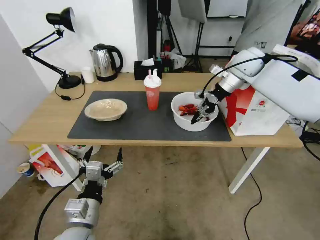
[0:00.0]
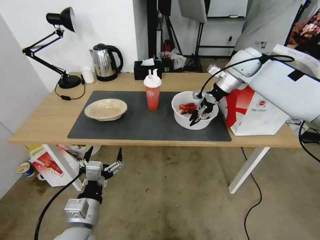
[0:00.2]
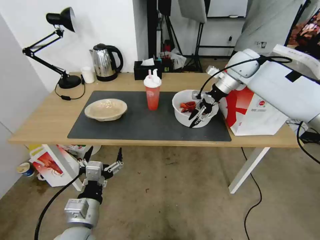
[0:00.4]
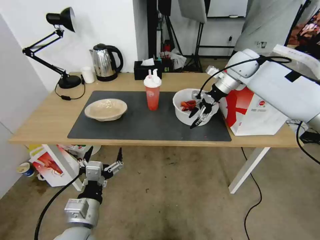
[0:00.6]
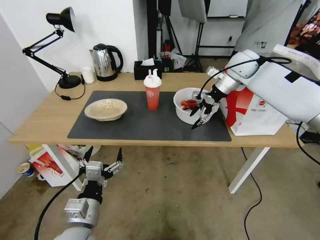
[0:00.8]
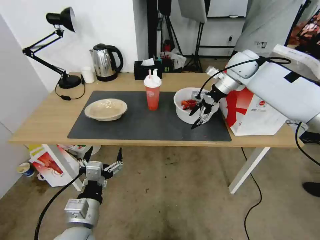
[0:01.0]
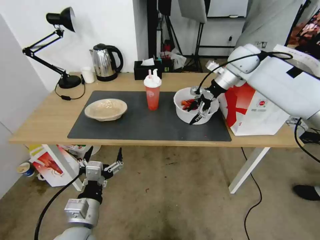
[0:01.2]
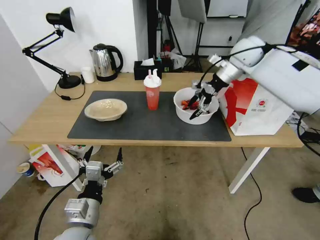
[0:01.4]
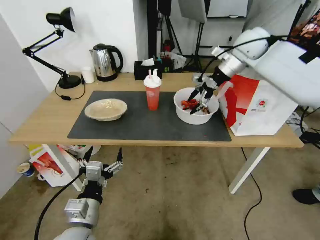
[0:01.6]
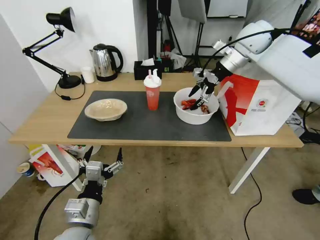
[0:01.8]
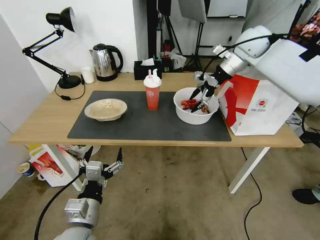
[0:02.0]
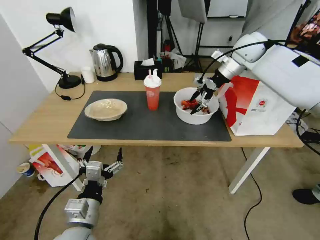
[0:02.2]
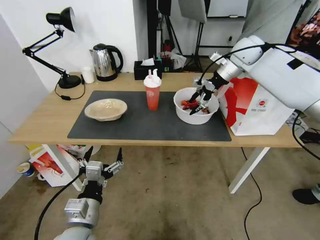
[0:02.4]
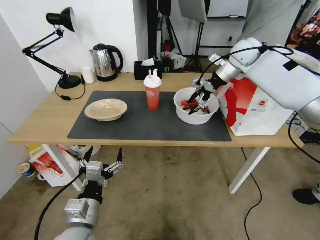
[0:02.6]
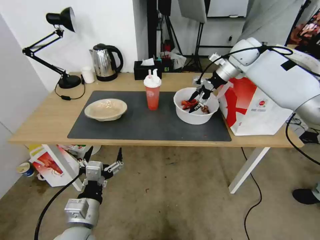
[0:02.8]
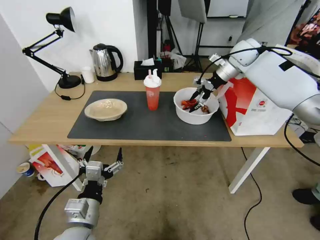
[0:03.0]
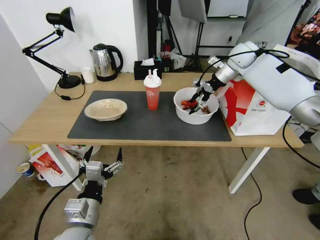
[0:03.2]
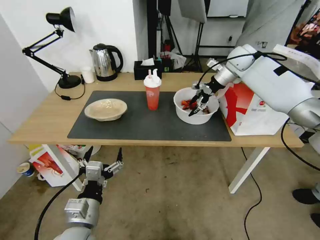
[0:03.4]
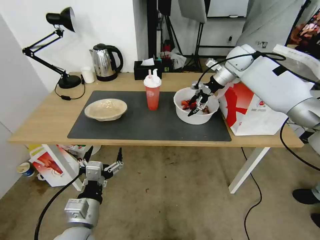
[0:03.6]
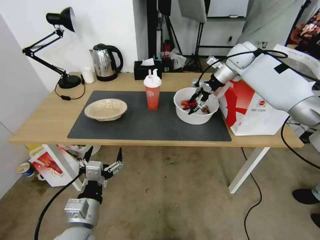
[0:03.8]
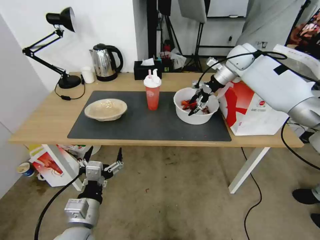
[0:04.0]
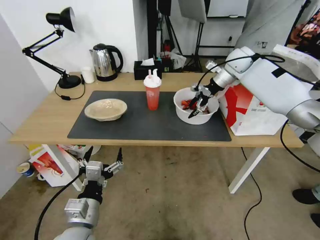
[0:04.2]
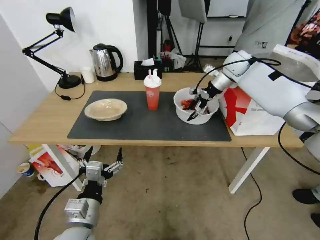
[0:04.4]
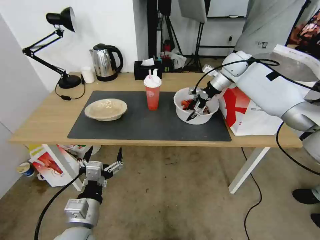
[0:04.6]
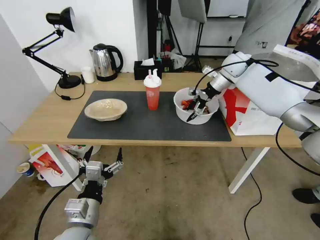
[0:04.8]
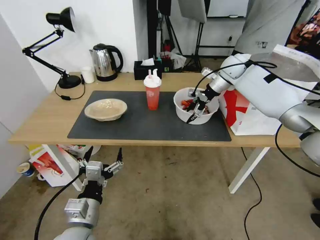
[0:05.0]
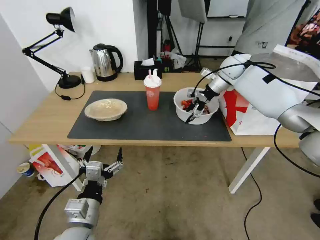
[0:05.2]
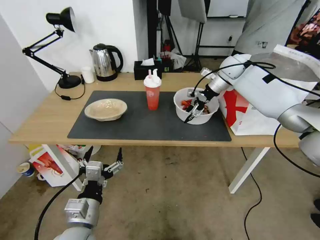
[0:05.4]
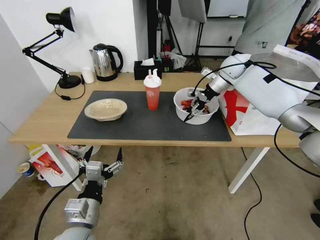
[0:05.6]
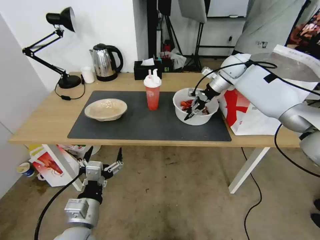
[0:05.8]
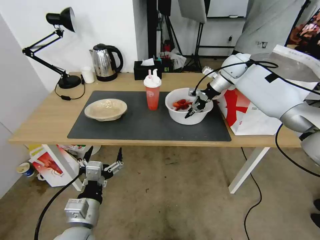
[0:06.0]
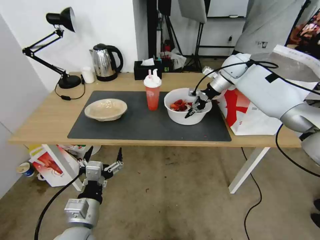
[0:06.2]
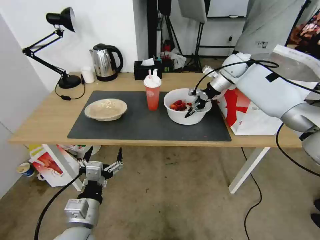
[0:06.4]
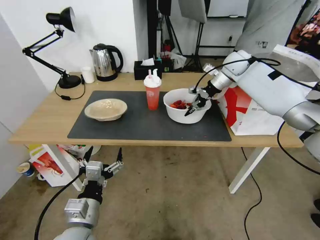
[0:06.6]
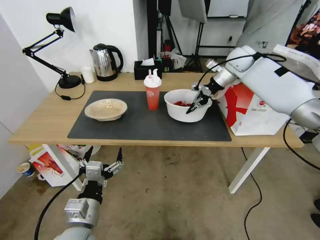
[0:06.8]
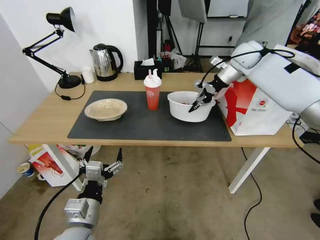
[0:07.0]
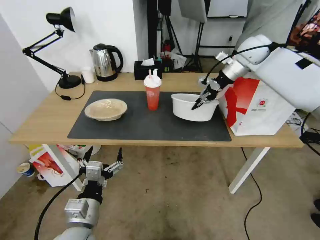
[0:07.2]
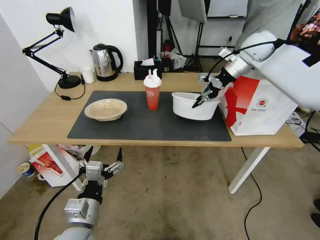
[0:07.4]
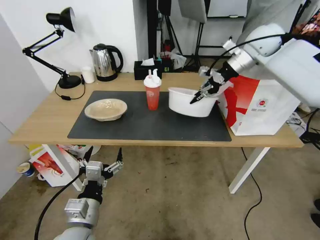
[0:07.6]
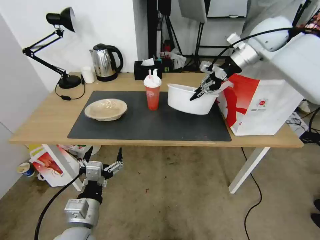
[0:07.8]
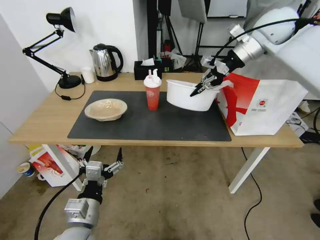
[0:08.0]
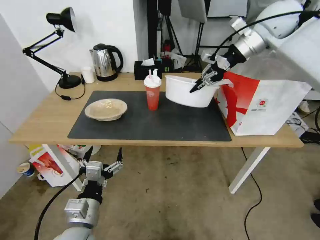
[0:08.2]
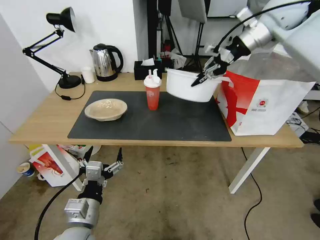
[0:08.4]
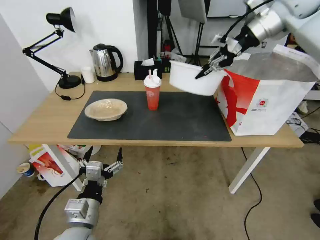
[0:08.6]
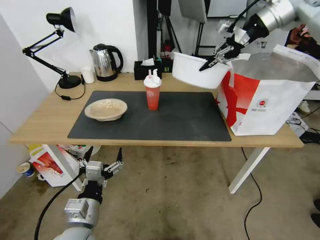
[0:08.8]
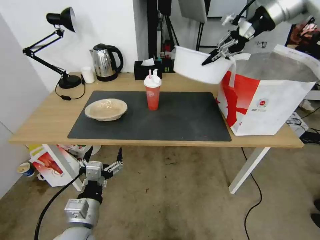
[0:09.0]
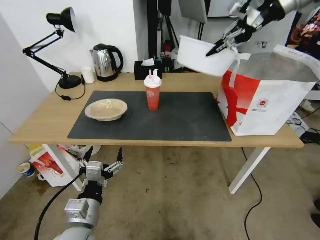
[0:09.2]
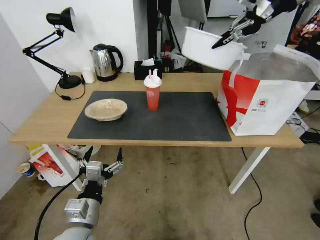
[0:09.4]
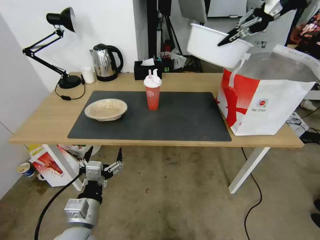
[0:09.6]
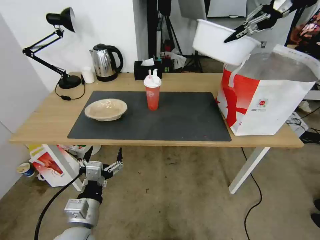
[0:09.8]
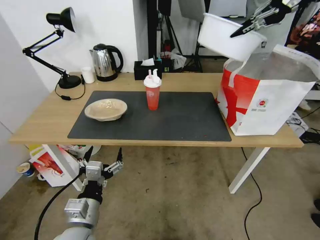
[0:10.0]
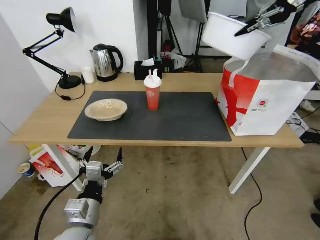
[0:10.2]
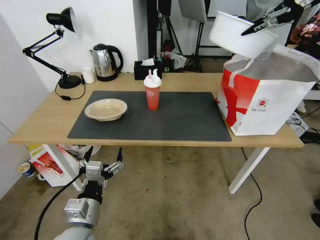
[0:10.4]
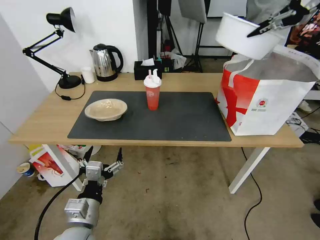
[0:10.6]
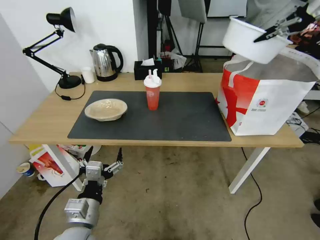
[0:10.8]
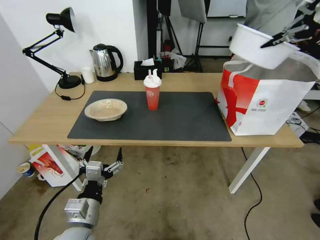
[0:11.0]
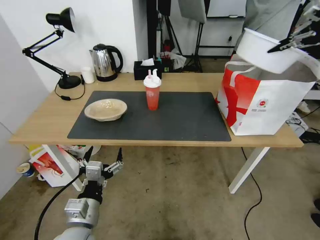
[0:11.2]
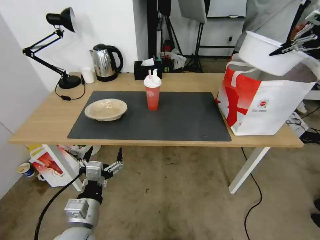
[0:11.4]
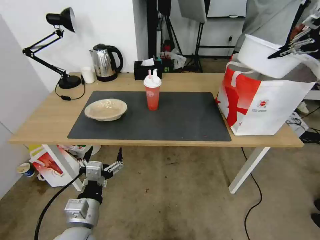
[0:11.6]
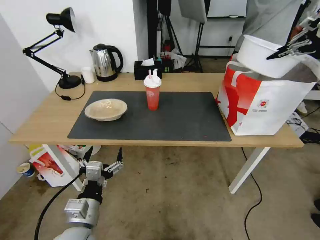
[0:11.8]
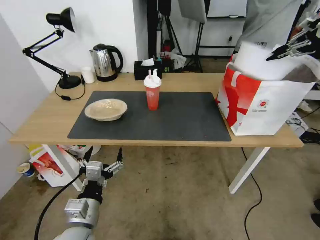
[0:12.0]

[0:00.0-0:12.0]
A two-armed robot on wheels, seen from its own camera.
Task of the whole recording: Pick up the trash from the table and place it into the takeout bag.
0:00.0 to 0:01.6: The right gripper shifts approximately 5 cm upward, and opens up.
0:01.6 to 0:03.0: The right gripper shifts by approximately 5 cm.
0:03.0 to 0:04.4: The grippers stay close to where they were, moving slightly.
0:04.4 to 0:06.0: The right gripper closes its fingers.
0:06.0 to 0:07.6: The right gripper is displaced upward and backward by approximately 10 cm.
0:07.6 to 0:09.0: The right gripper is displaced upward by approximately 15 cm.
0:09.0 to 0:10.4: The right gripper heads to the right and upward, covering about 15 cm.
0:10.4 to 0:12.0: The right gripper travels to the right and downward by roughly 10 cm.

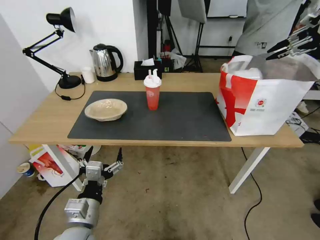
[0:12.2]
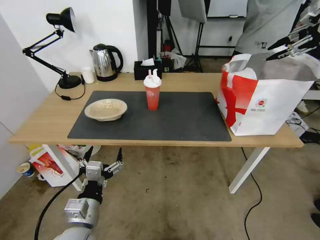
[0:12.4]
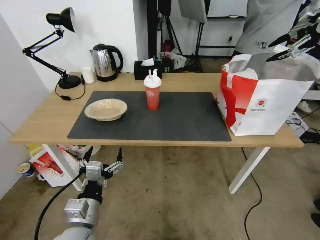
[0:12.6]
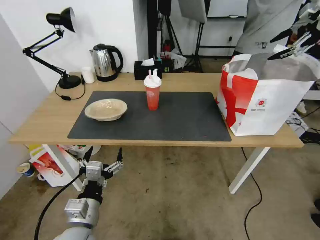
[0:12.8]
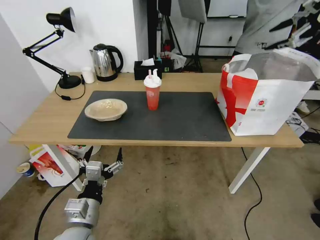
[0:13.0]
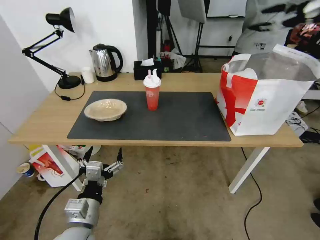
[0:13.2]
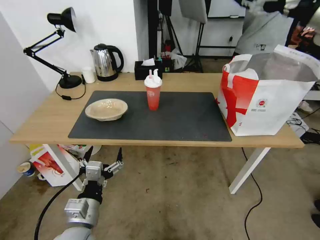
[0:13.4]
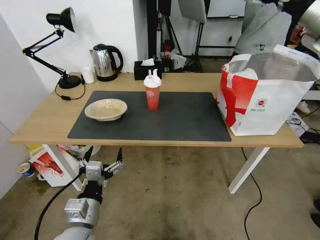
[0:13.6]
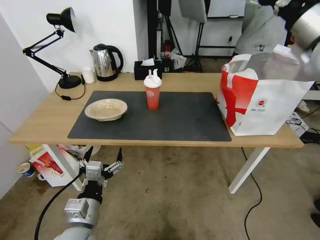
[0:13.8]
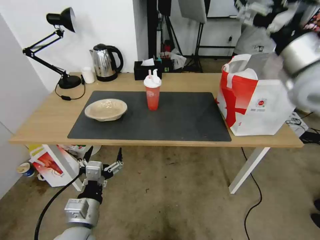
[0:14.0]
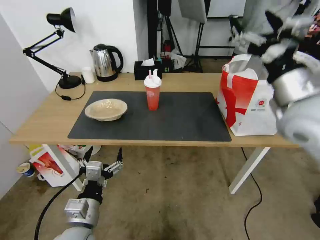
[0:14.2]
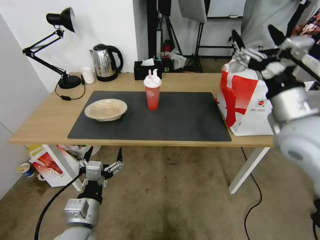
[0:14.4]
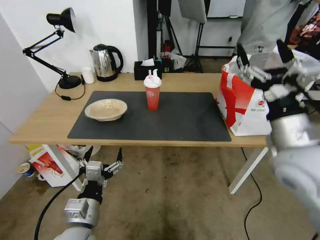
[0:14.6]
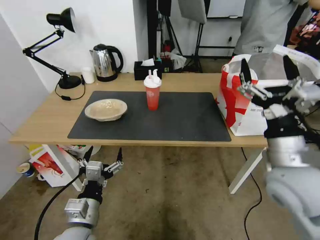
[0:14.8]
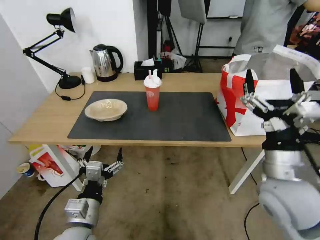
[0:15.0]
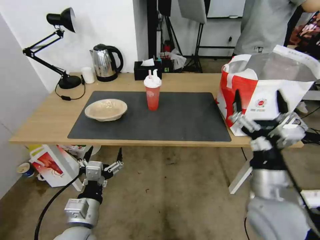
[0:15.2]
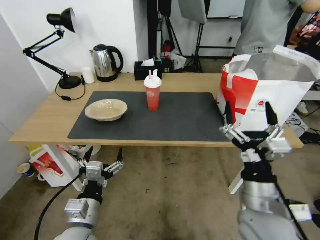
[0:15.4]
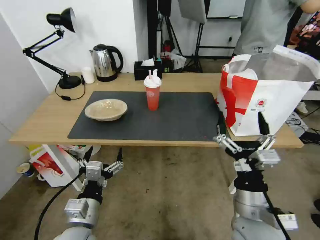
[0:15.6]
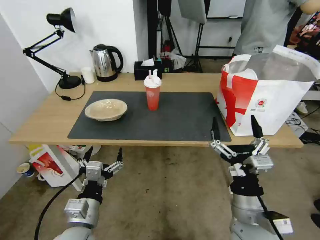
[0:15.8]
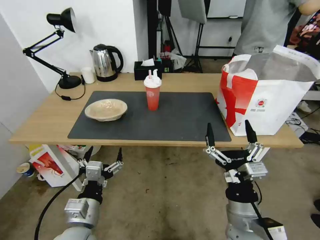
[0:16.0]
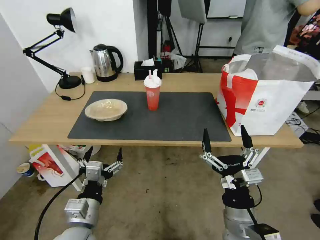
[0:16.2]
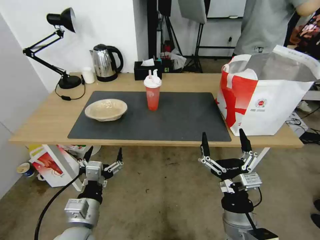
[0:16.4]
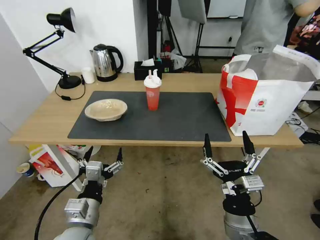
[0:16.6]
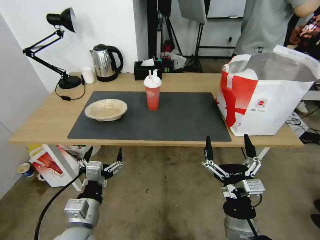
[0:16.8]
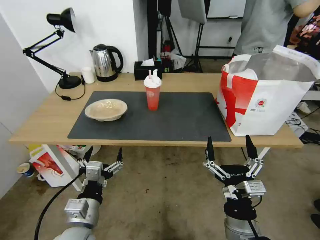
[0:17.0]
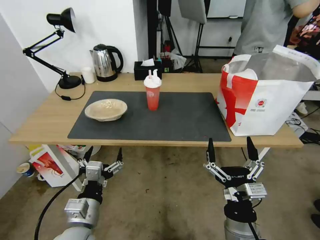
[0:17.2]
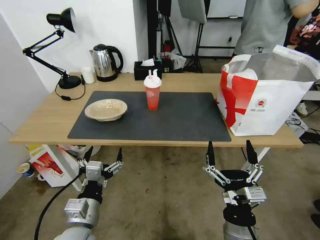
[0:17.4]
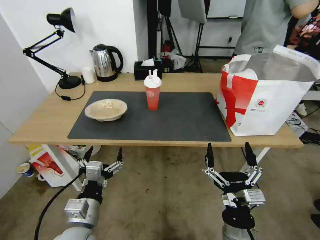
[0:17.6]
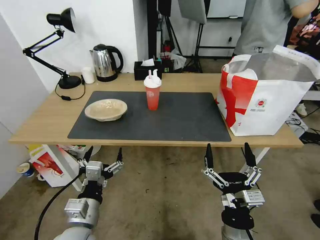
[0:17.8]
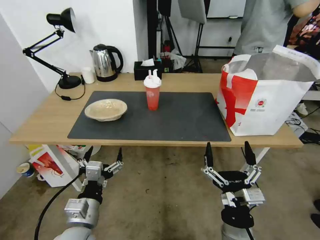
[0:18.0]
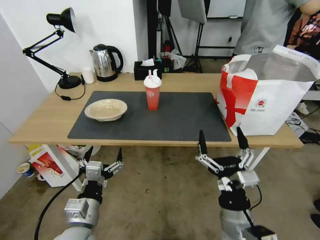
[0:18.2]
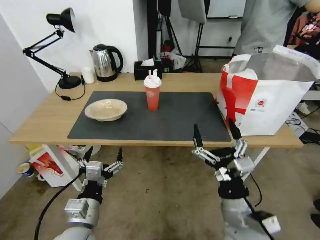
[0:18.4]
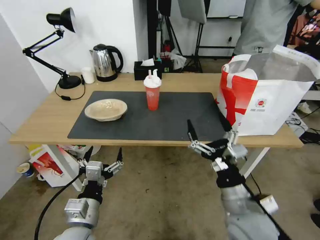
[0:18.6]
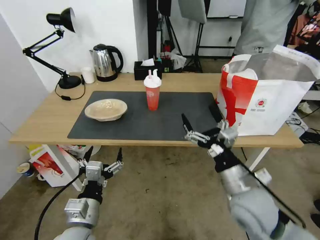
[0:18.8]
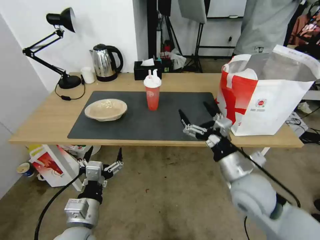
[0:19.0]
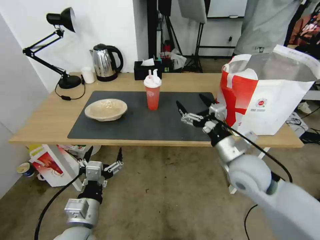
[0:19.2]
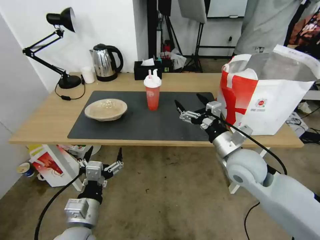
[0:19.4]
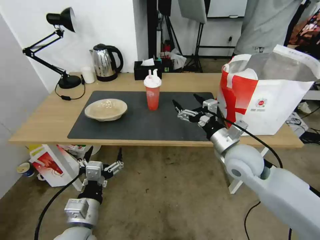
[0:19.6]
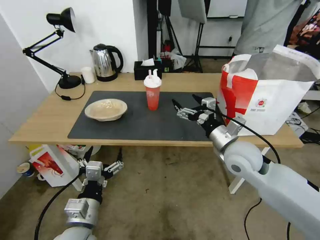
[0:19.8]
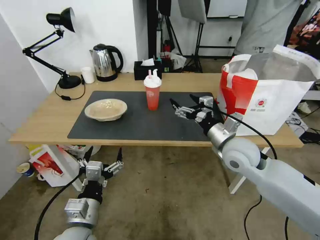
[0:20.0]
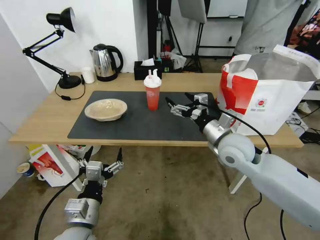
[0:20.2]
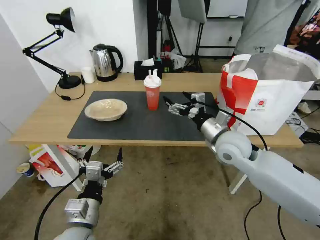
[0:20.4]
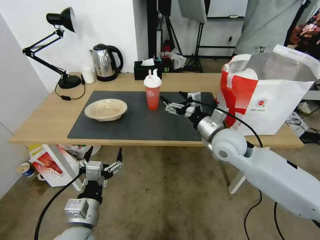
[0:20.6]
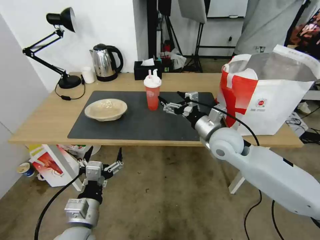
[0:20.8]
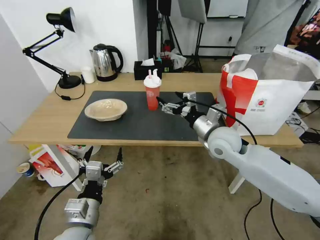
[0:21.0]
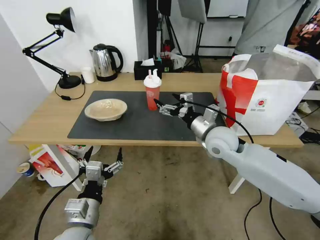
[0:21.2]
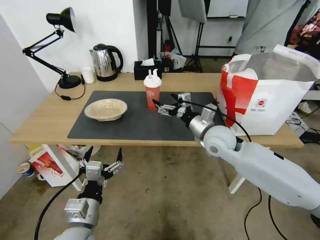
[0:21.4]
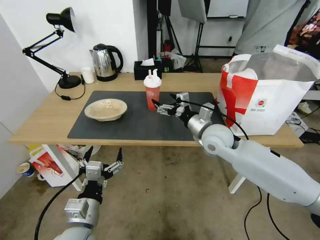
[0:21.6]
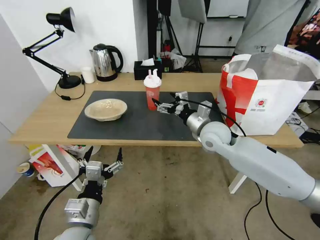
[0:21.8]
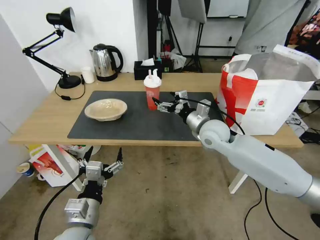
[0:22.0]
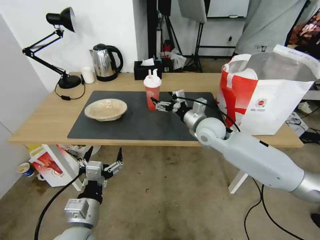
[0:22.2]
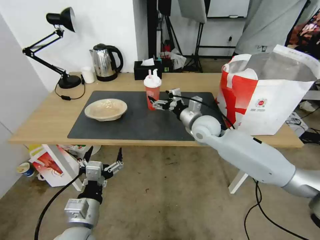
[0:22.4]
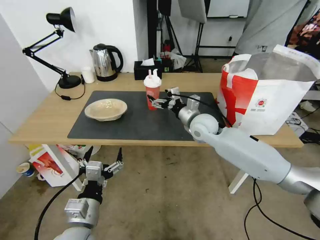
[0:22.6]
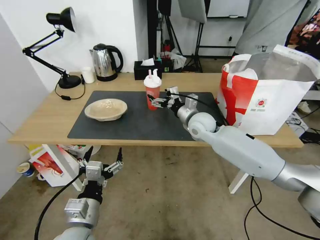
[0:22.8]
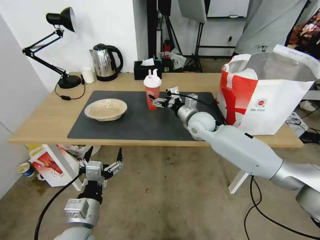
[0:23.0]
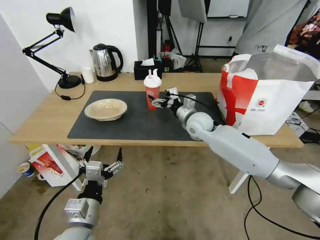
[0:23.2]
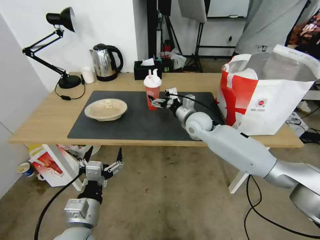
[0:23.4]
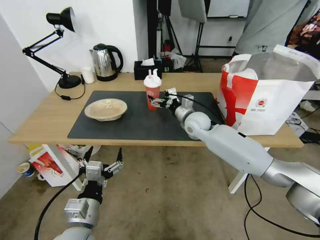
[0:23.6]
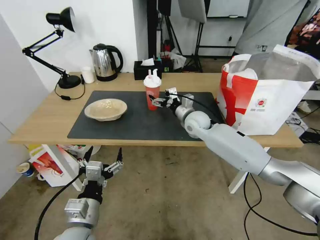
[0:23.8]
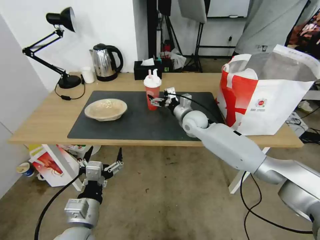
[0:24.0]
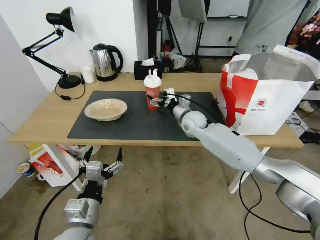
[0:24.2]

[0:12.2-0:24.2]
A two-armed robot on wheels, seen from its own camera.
Task of the whole recording: Pick up the trash from the table and place it into the takeout bag.
0:12.2 to 0:13.8: The right gripper heads to the left, backward and downward, covering roughly 25 cm, and opens.
0:13.8 to 0:15.2: The right gripper moves downward and backward, some 35 cm.
0:15.2 to 0:16.6: The right gripper moves downward, backward and to the left, roughly 15 cm.
0:16.6 to 0:18.2: The grippers make only small movements.
0:18.2 to 0:19.8: The right gripper travels forward and upward by roughly 20 cm.
0:19.8 to 0:21.2: The right gripper shifts approximately 5 cm forward.
0:21.2 to 0:22.6: The right gripper goes roughly 5 cm forward.
0:22.6 to 0:24.2: The right gripper travels forward by about 5 cm.
